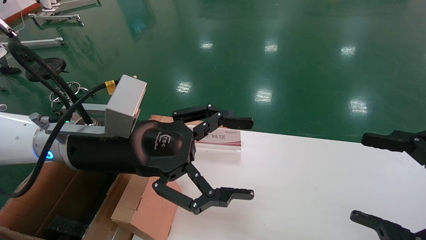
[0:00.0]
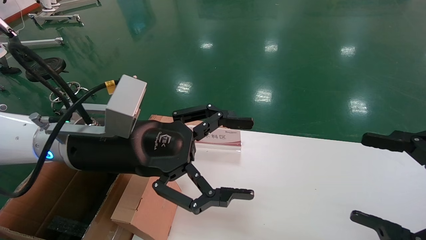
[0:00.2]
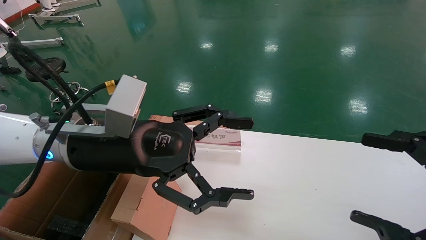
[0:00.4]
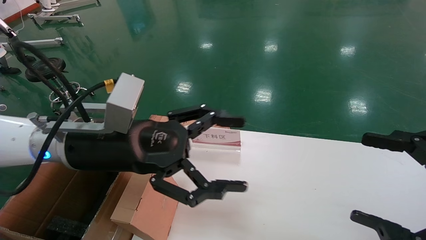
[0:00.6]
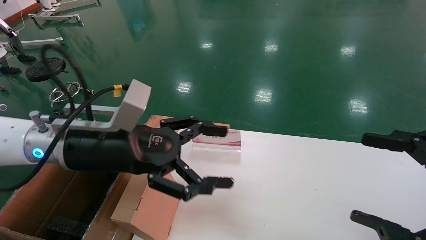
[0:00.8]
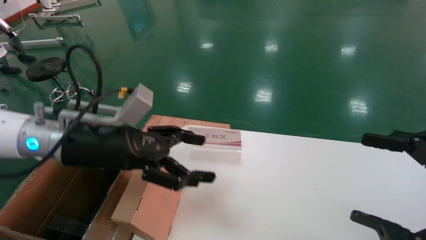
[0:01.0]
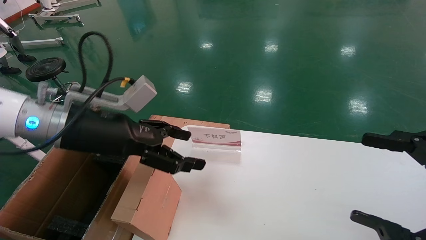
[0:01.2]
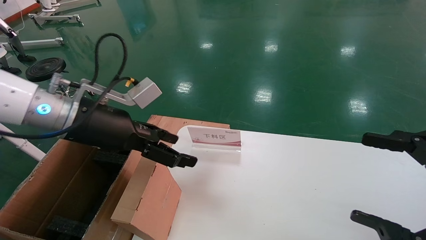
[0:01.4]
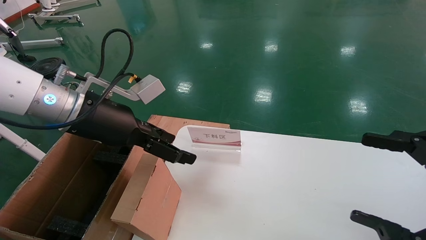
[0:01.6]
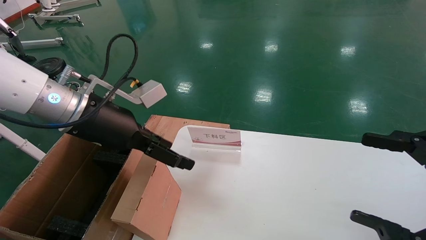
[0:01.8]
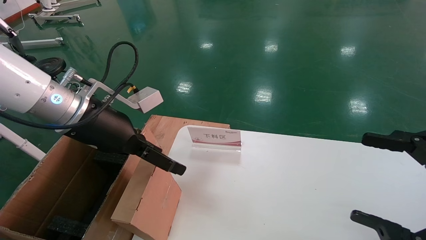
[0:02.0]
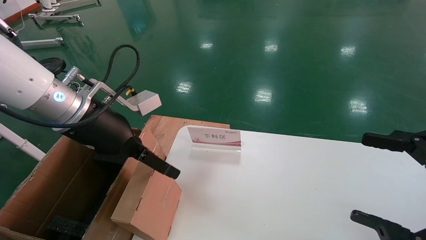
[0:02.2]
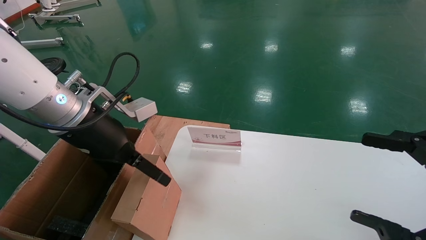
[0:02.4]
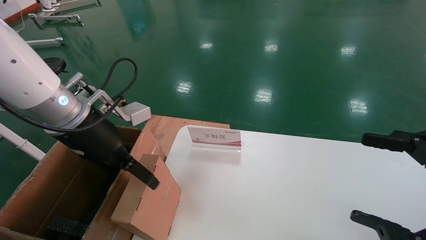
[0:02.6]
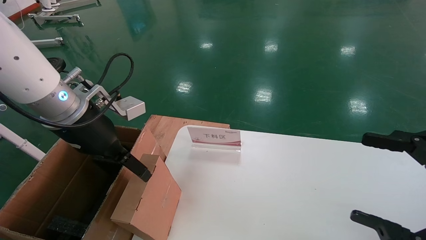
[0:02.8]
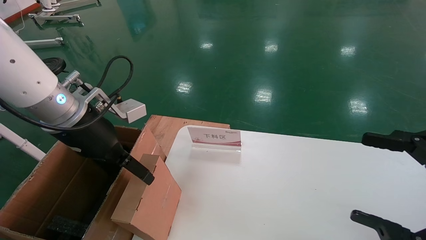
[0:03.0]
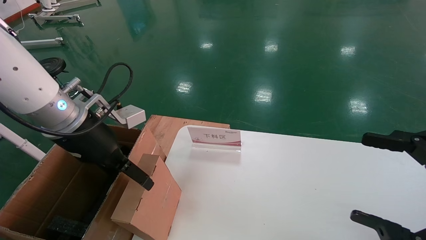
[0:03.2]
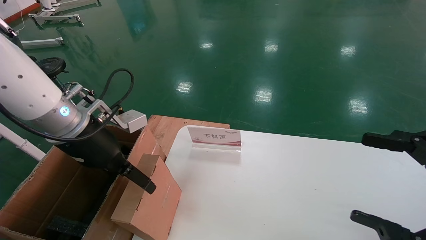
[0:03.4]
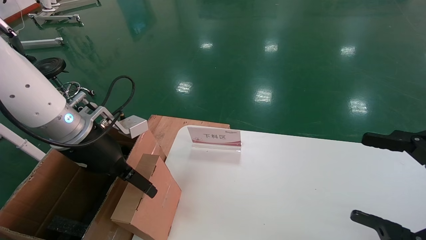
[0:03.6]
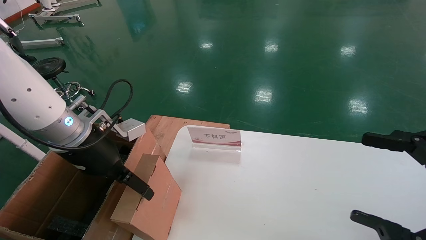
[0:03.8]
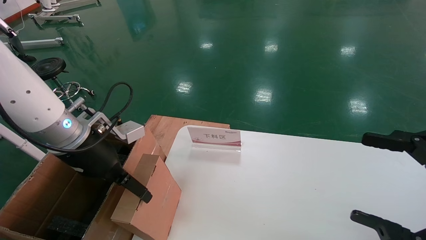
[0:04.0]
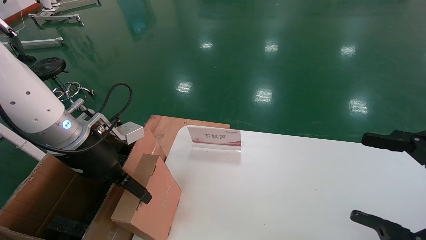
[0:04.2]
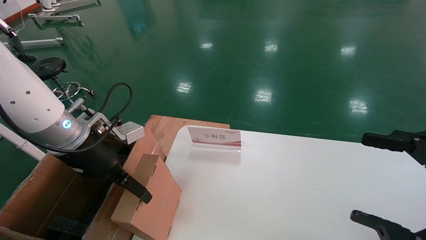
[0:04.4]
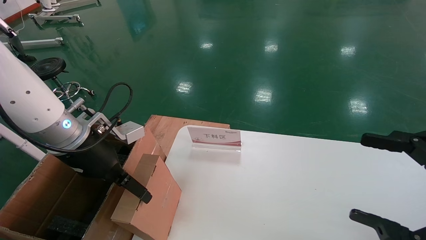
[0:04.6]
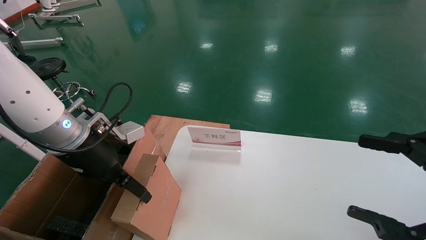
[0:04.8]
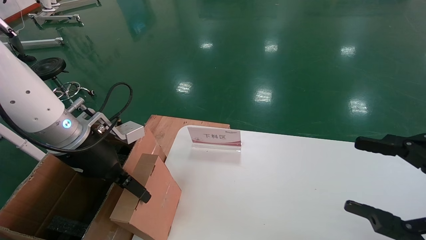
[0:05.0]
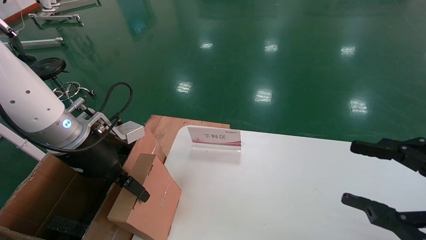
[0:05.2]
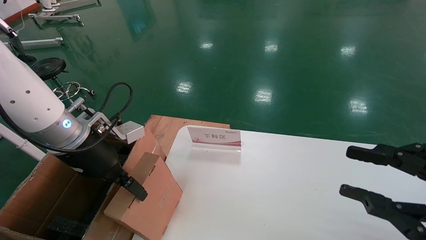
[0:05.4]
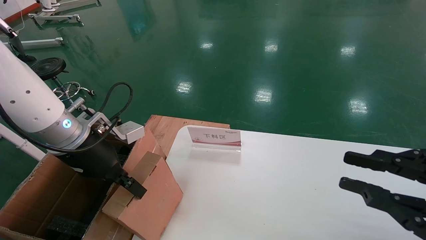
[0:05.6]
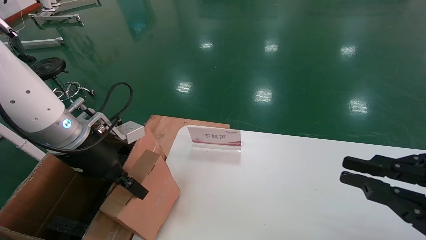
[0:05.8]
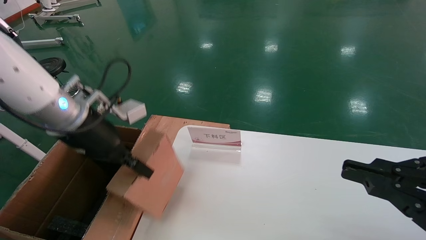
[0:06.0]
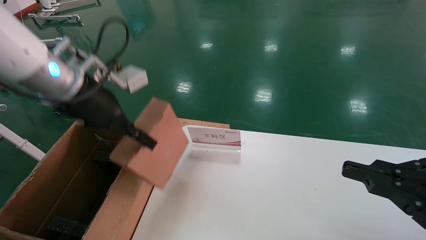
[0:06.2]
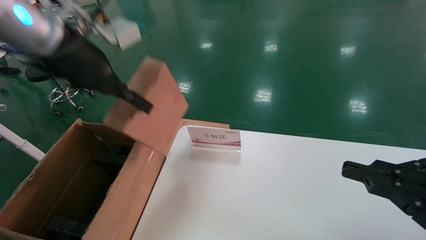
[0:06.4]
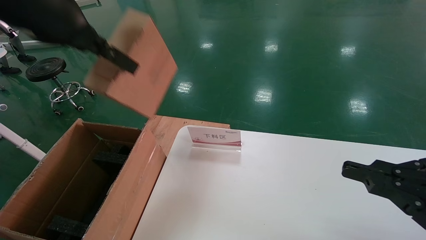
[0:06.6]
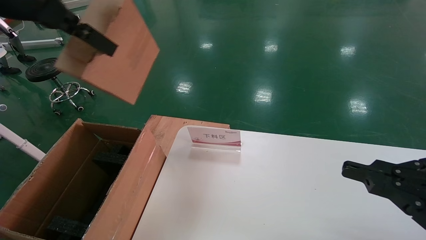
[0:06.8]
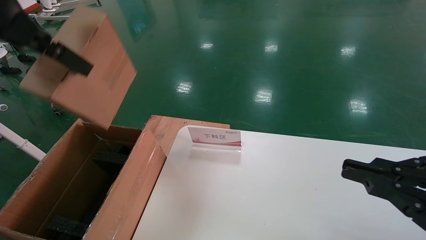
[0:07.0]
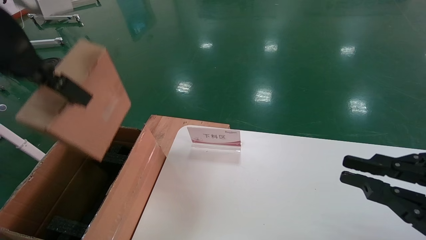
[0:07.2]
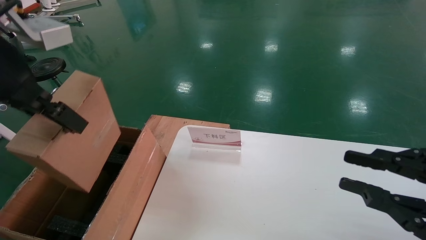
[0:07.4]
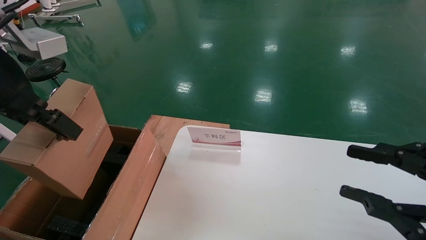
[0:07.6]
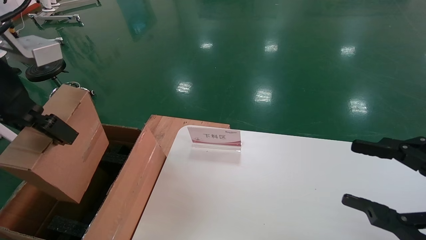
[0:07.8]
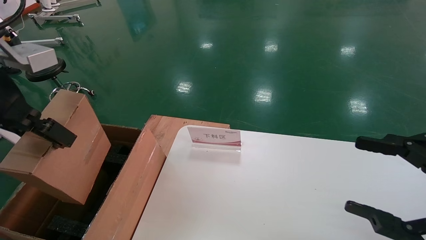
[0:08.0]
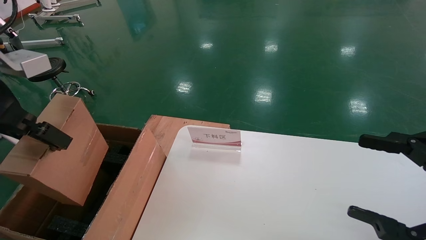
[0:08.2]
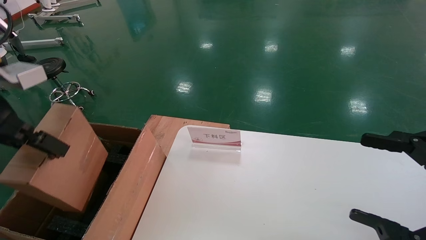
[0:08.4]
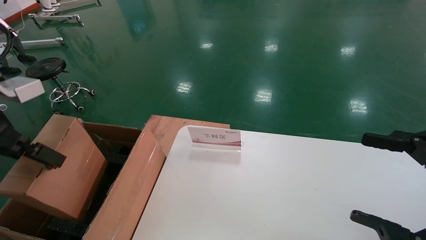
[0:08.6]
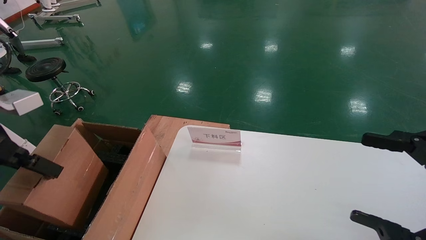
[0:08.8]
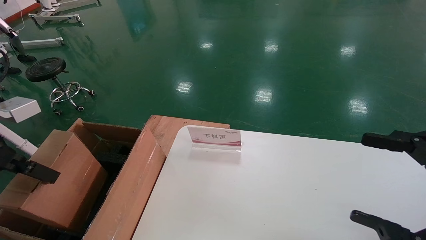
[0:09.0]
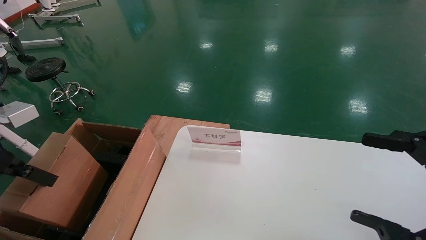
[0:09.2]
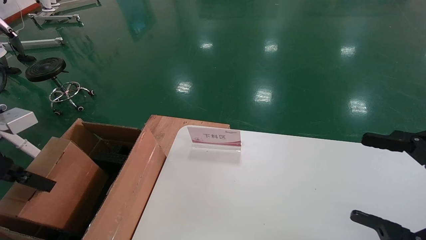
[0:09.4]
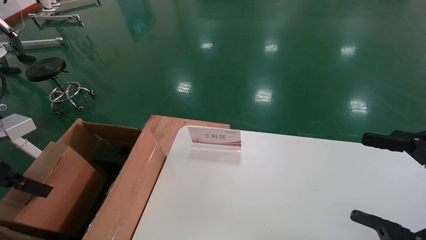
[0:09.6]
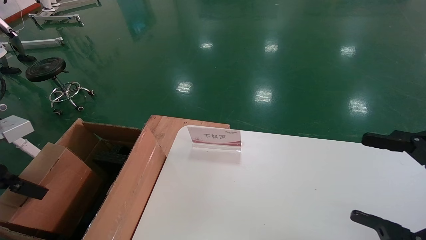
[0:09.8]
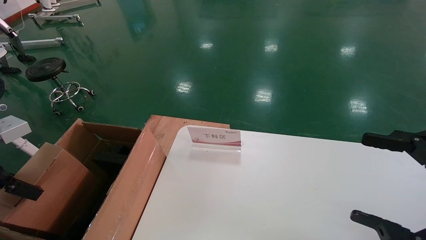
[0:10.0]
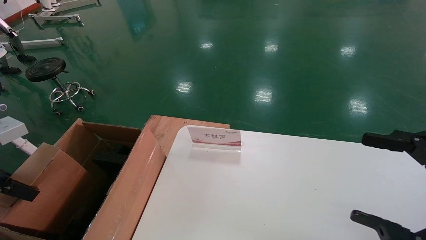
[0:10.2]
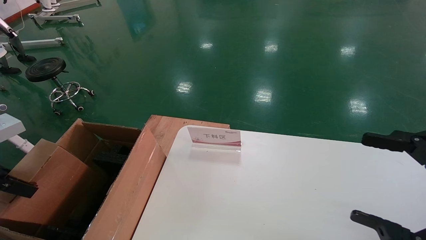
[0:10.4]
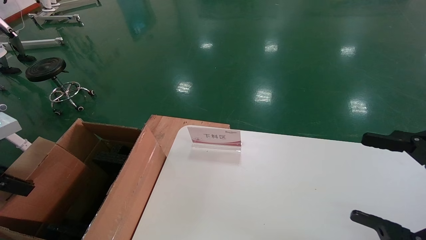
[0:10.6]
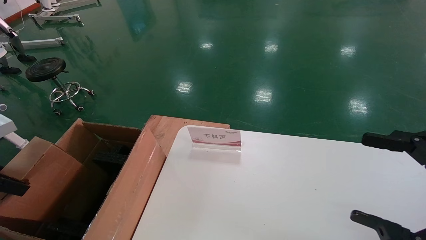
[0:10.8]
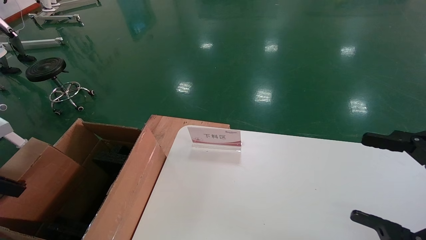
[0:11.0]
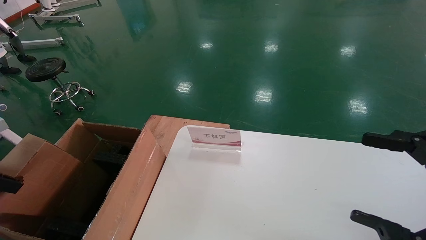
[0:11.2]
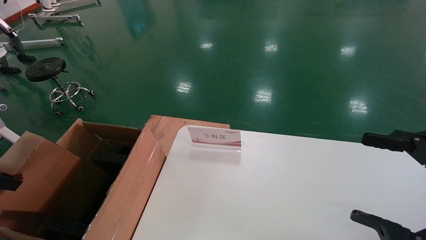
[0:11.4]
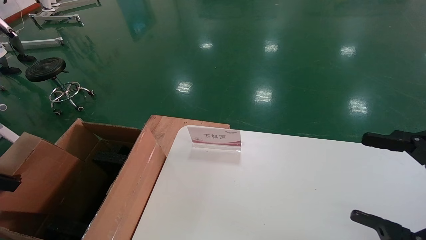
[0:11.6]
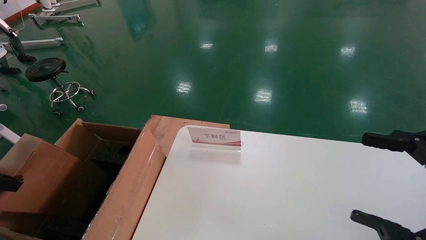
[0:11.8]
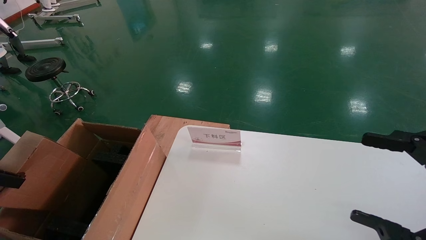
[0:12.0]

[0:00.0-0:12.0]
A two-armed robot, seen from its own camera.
Task of the whole recording: pick up the small cardboard box and load it into the large cardboard box.
Step, 0:00.8 to 0:05.6: Pick up the mouse and power cord box.
0:00.0 to 0:01.6: The left gripper is displaced to the left by about 5 cm.
0:03.0 to 0:04.4: There are only small adjustments of the grippers.
0:04.4 to 0:06.0: The right gripper closes, while the left gripper travels upward by approximately 5 cm, and closes up.
0:06.0 to 0:07.6: The left gripper goes approximately 15 cm upward and backward.
0:07.6 to 0:09.0: The right gripper opens; the left gripper moves to the left and downward, about 15 cm.
0:09.0 to 0:10.4: The left gripper is displaced to the left by roughly 5 cm.
0:10.4 to 0:12.0: The left gripper shifts about 5 cm to the left.

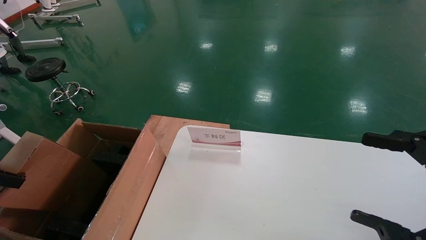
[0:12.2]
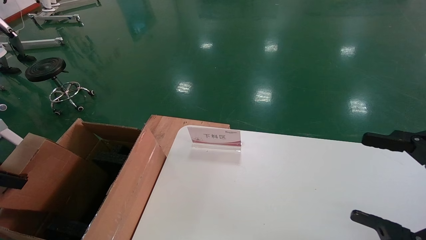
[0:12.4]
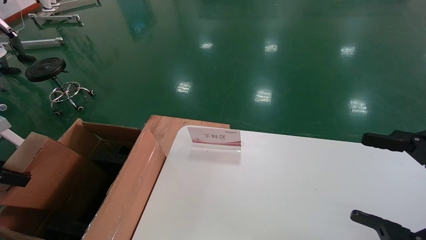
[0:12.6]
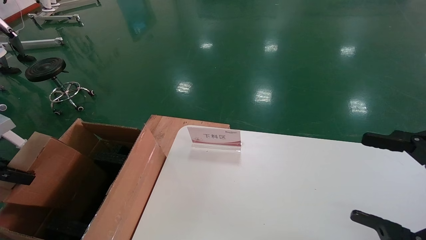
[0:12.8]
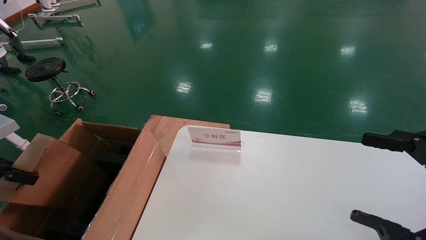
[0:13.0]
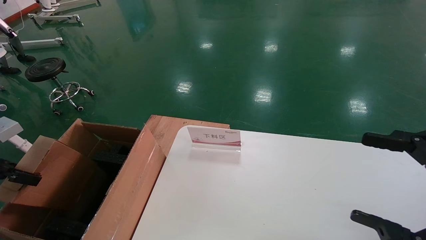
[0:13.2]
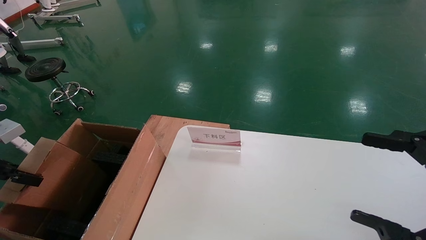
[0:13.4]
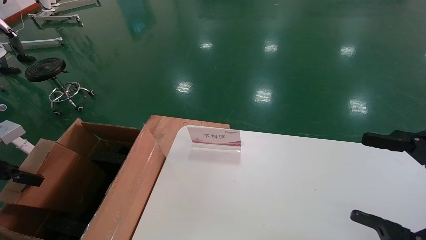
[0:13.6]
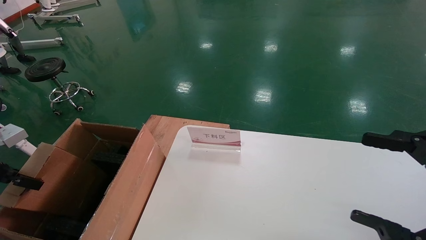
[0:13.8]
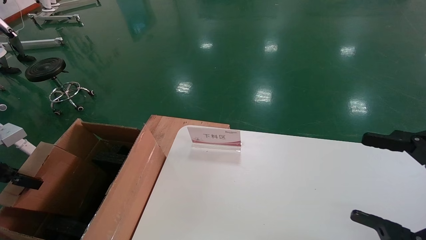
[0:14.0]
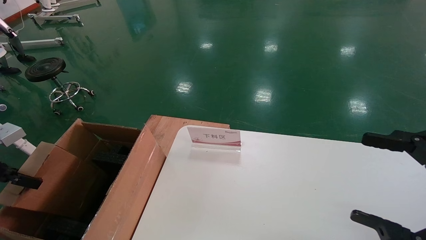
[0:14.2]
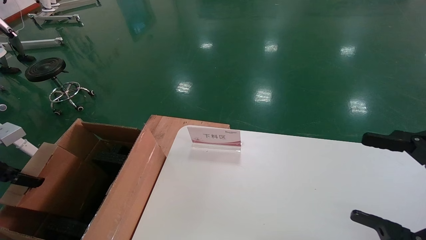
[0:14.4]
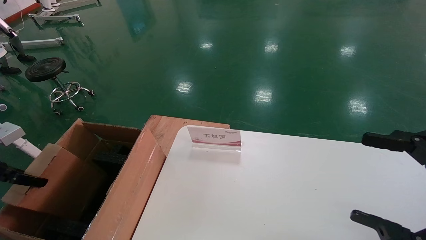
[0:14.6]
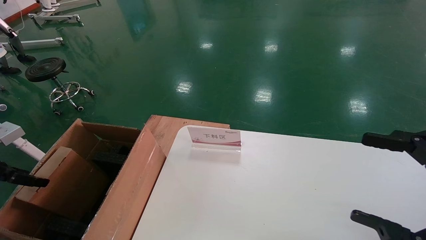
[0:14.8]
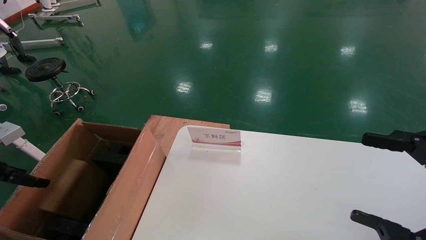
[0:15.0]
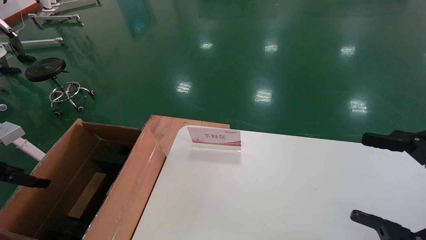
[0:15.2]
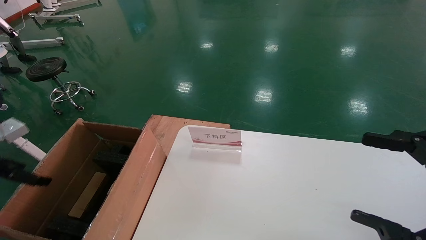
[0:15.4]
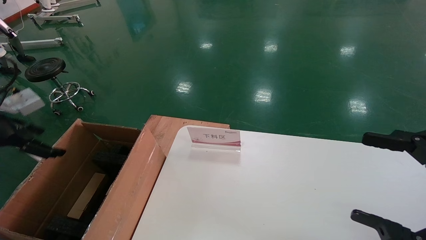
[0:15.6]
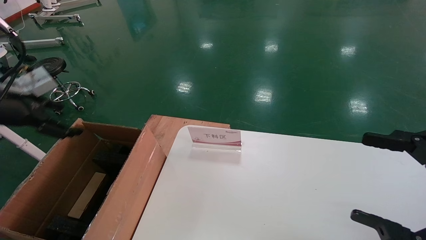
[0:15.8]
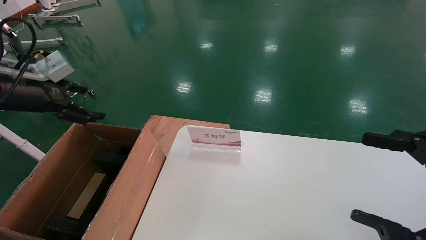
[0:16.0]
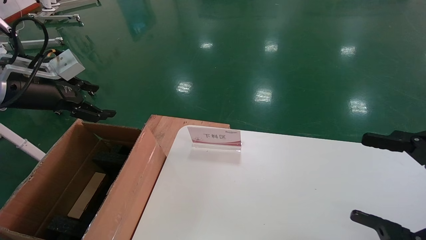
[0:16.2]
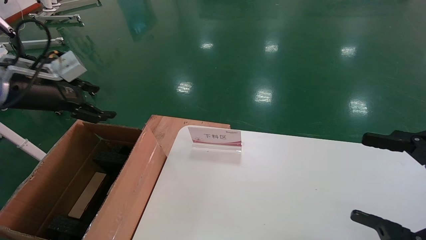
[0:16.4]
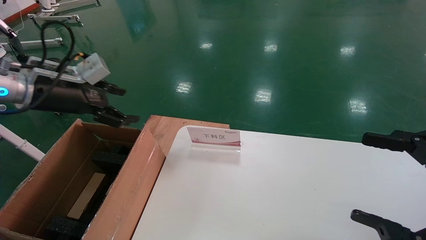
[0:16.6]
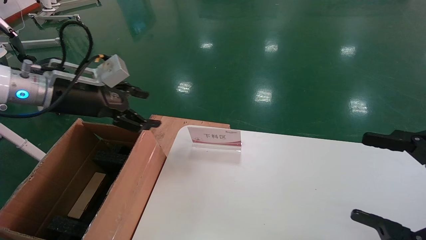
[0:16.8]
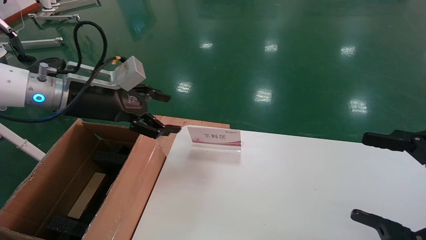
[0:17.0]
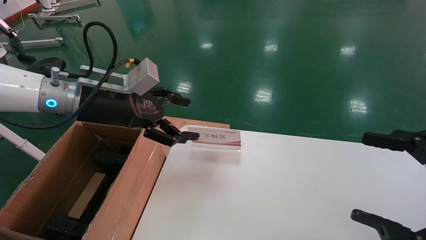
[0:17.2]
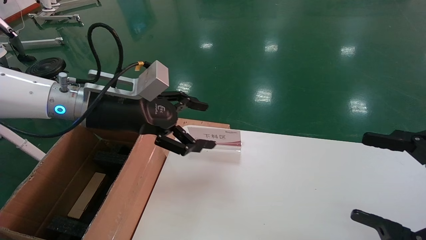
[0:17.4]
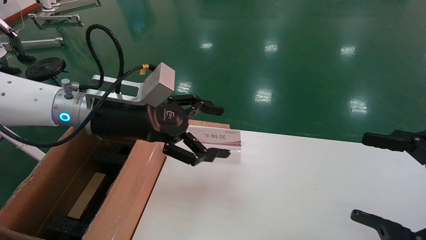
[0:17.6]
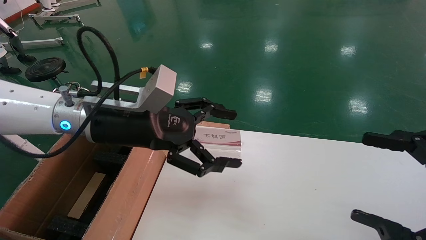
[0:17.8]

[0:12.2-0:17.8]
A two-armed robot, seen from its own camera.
Task of the whole recording: pick up the small cardboard box and load it into the large cardboard box.
Step, 0:12.2 to 0:14.4: Place the mouse and power cord box into the case.
0:12.2 to 0:13.6: The left gripper changes place by about 5 cm.
0:13.6 to 0:15.0: The left gripper opens its fingers.
0:15.0 to 0:16.4: The left gripper moves to the right, upward and forward, approximately 20 cm, and opens.
0:16.4 to 0:17.8: The left gripper travels to the right by some 20 cm.
